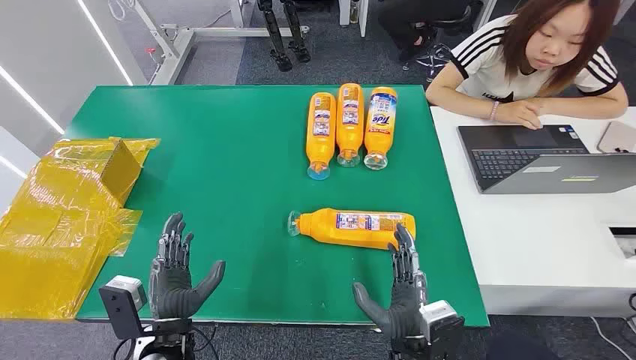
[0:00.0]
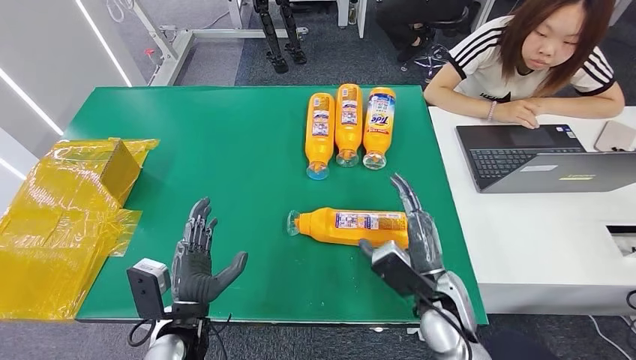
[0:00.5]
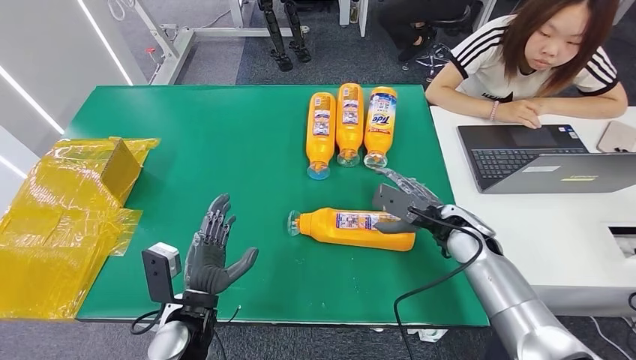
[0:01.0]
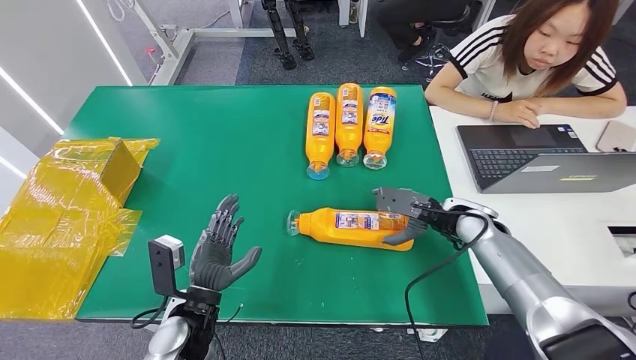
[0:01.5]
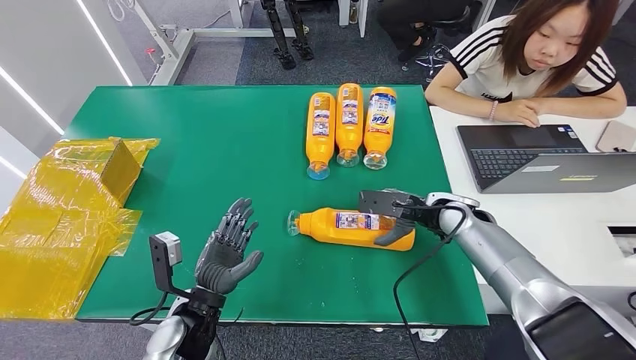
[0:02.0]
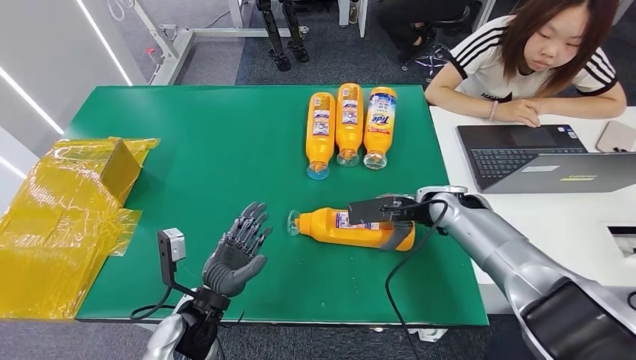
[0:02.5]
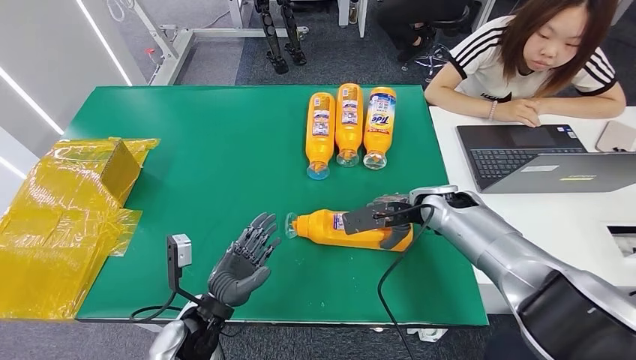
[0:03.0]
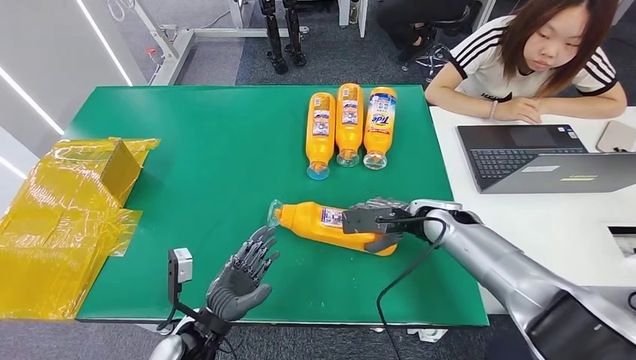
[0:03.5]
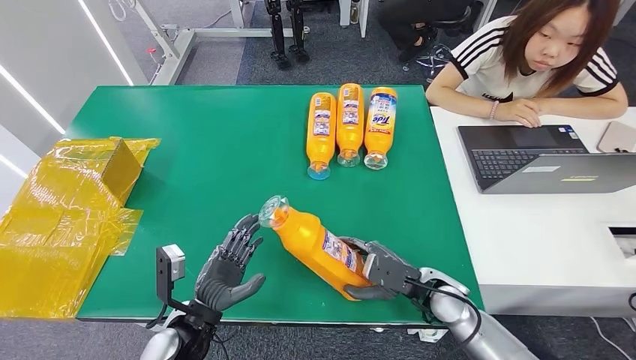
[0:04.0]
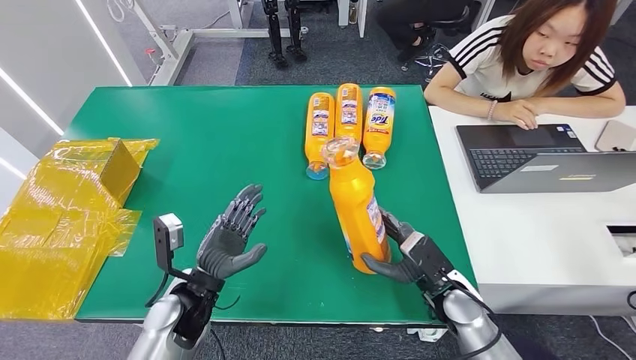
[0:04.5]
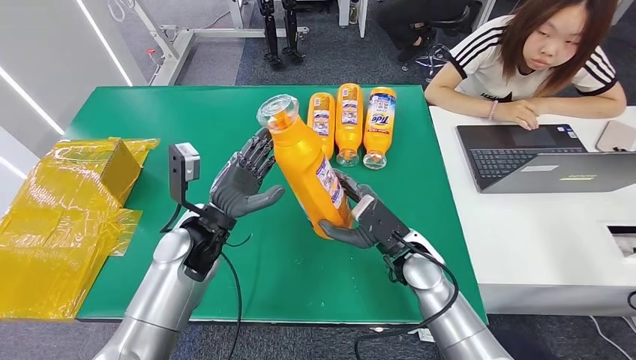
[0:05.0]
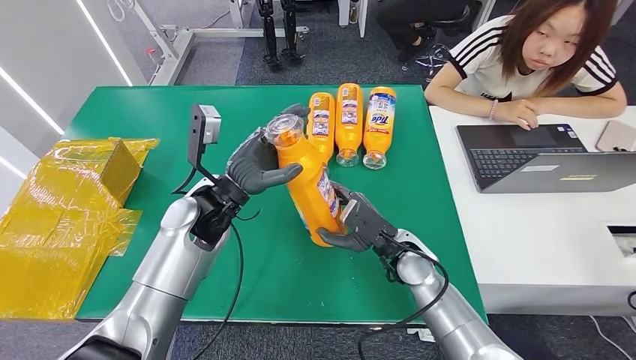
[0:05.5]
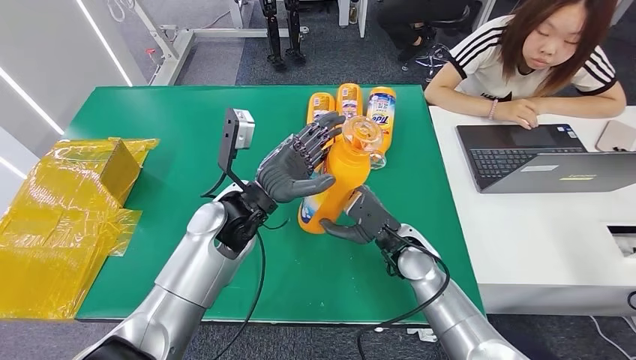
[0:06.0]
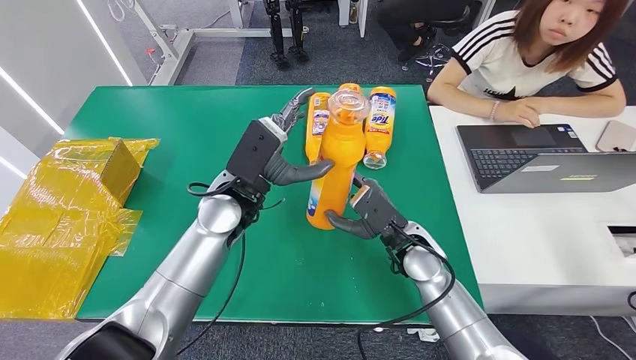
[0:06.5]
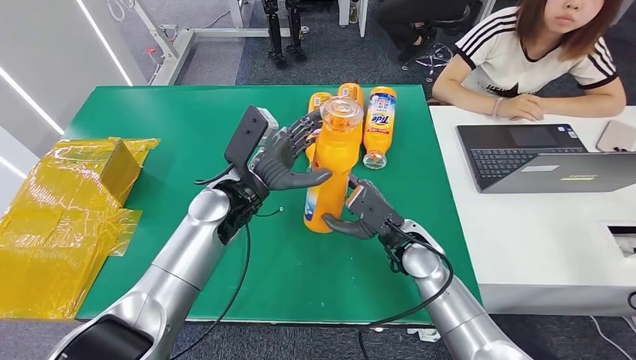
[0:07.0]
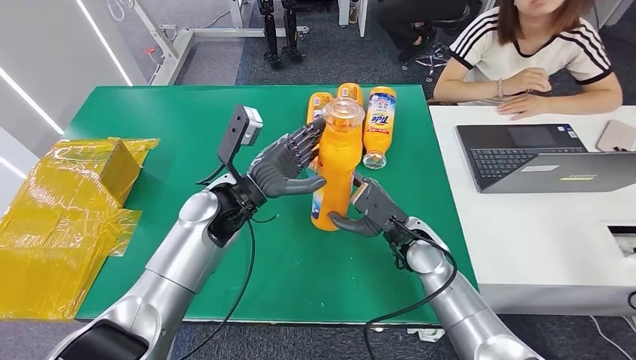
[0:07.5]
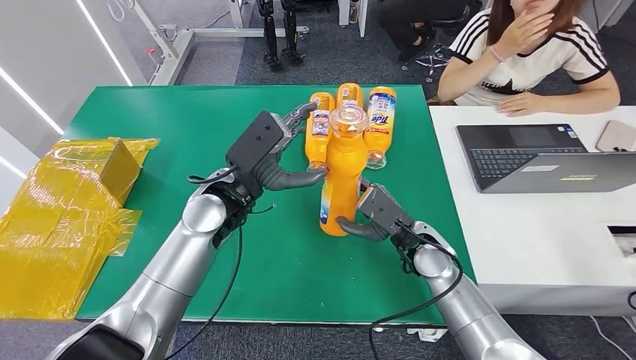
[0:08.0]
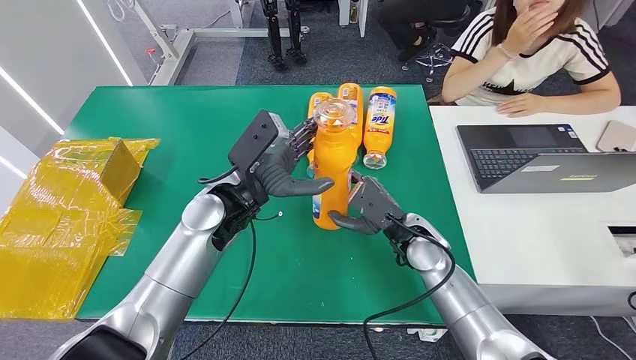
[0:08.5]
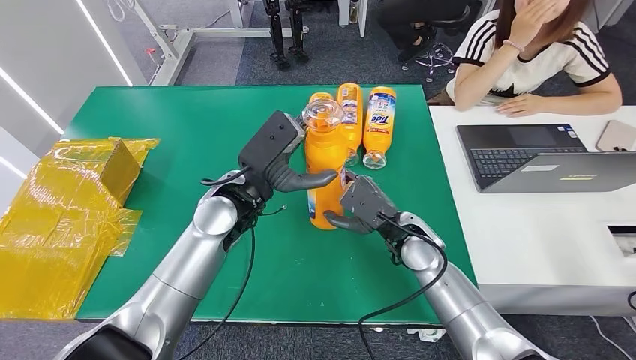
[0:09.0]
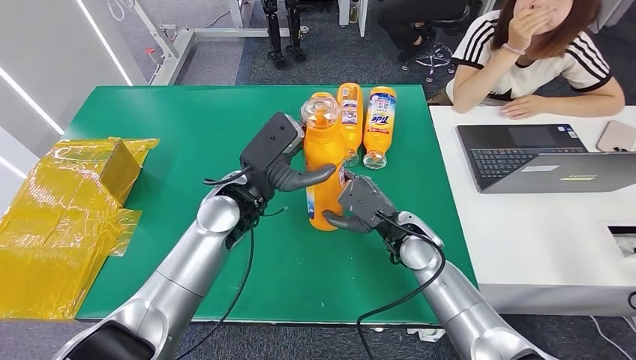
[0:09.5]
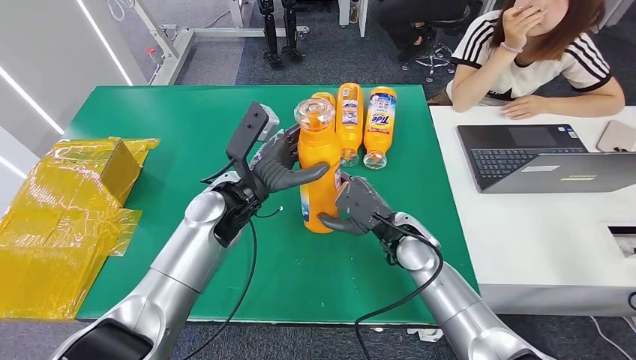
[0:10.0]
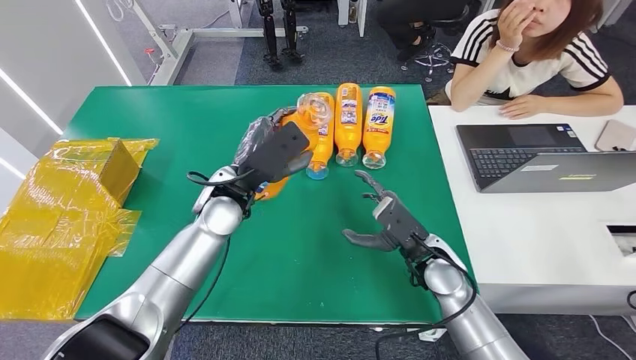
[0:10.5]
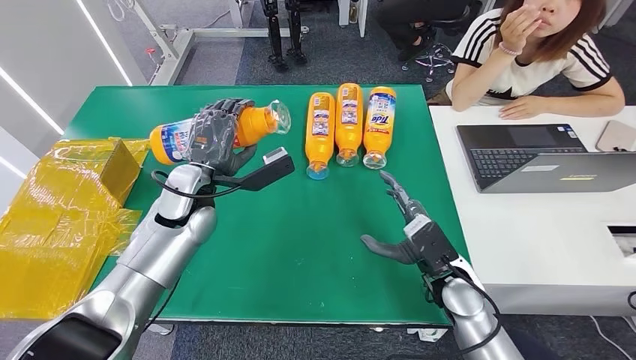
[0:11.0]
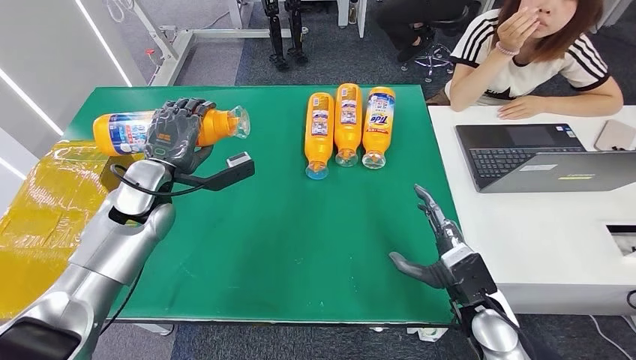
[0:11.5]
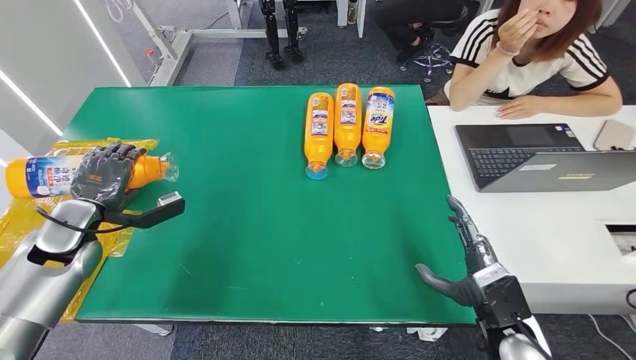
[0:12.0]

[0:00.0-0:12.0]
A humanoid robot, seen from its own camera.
Step, 0:00.0 to 0:06.5: Pick up the bottle from the table.
0:02.0 to 0:04.0: The right hand is displaced backward and downward by some 15 cm.

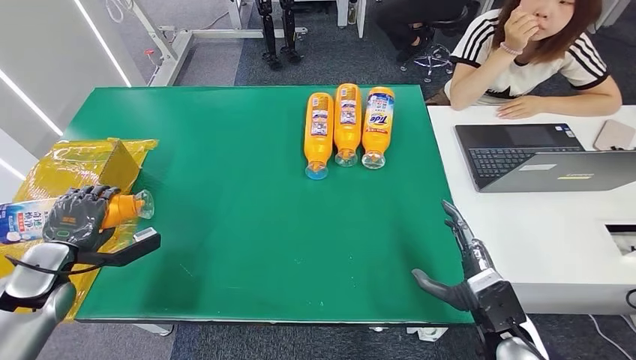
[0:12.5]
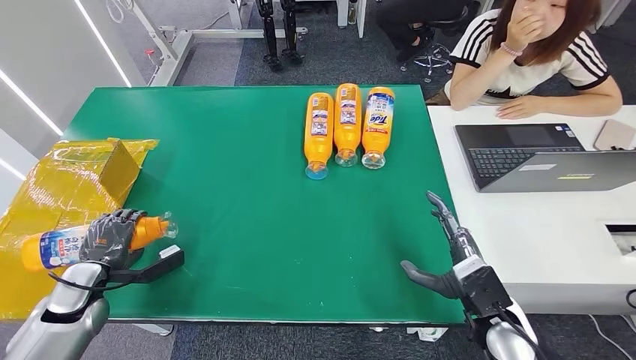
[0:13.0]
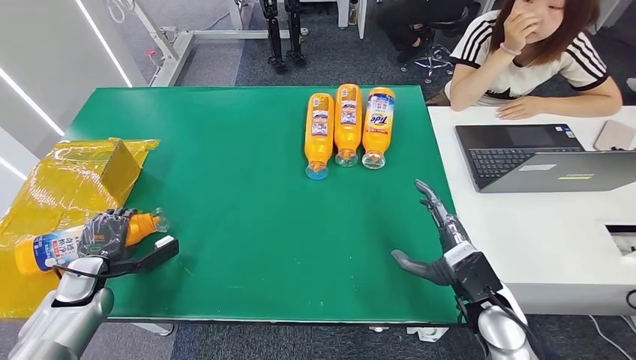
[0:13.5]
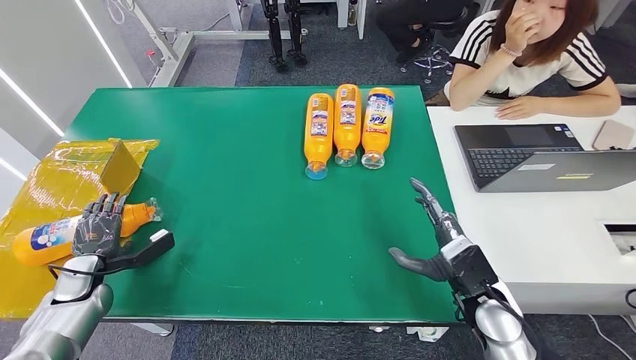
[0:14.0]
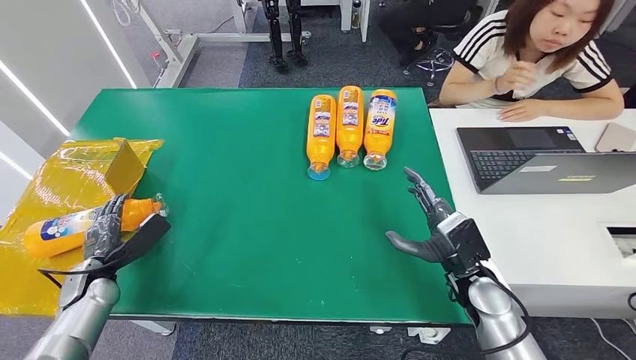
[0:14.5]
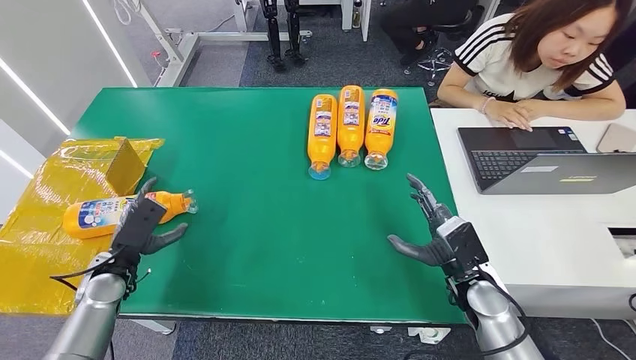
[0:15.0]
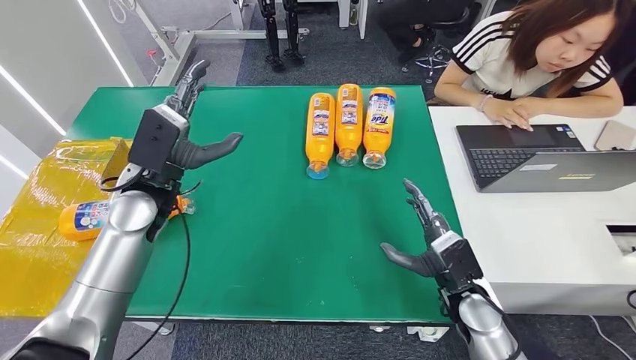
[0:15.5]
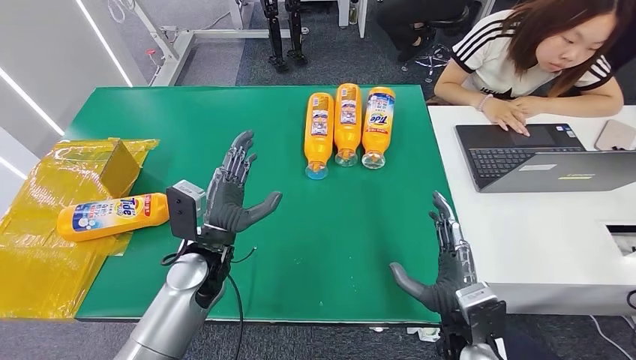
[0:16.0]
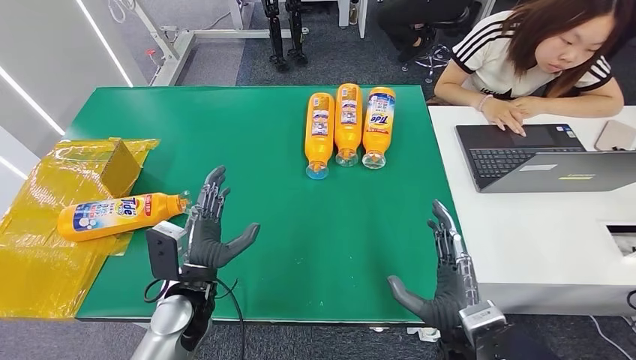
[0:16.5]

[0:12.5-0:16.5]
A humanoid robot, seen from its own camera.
Step, 0:12.5 to 0:16.5: Turn the bottle to the front side.

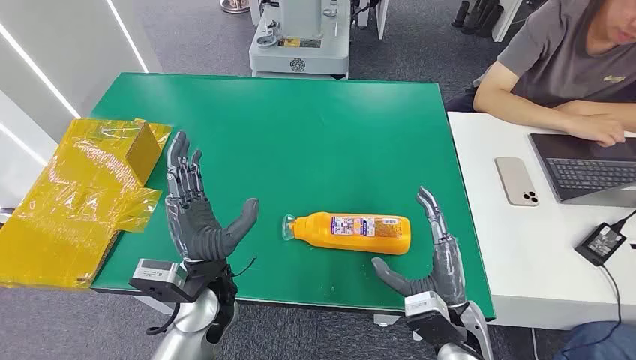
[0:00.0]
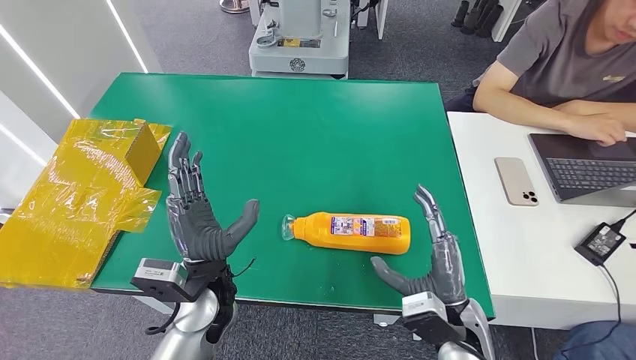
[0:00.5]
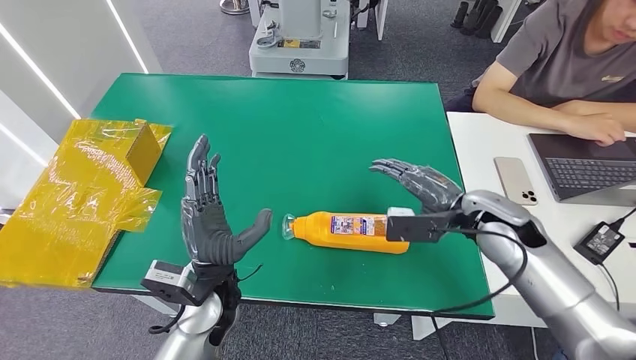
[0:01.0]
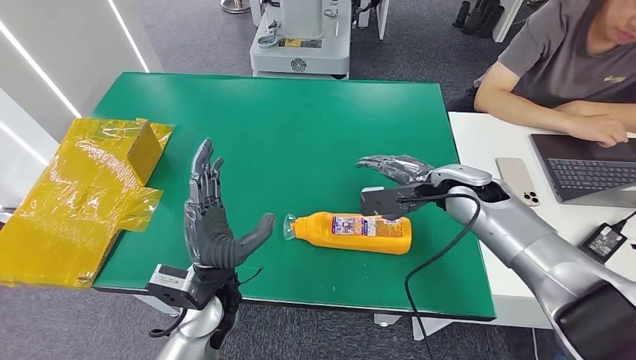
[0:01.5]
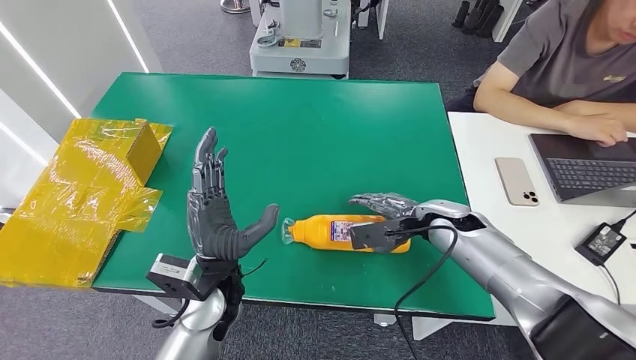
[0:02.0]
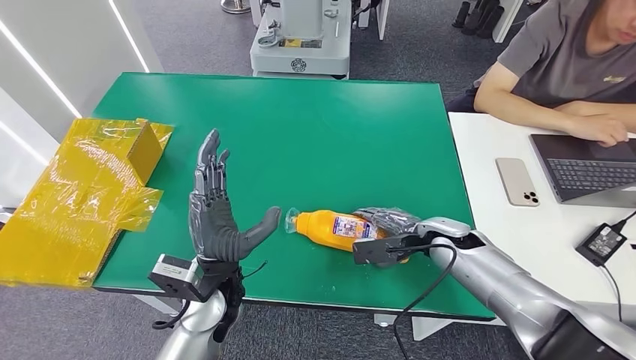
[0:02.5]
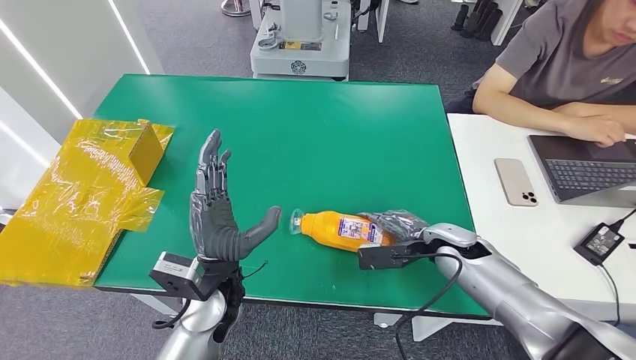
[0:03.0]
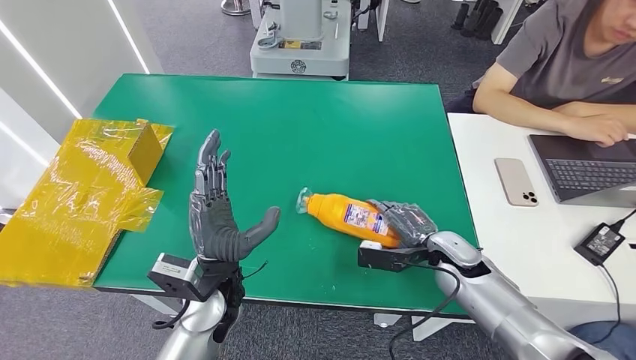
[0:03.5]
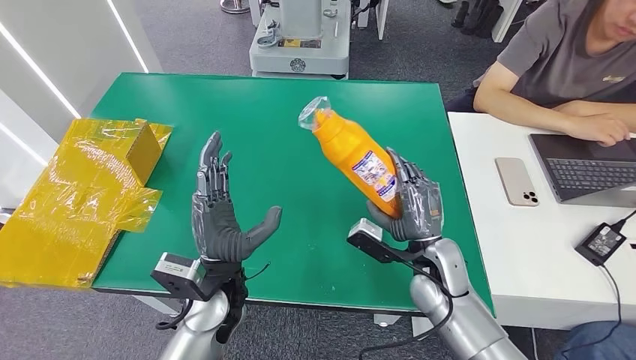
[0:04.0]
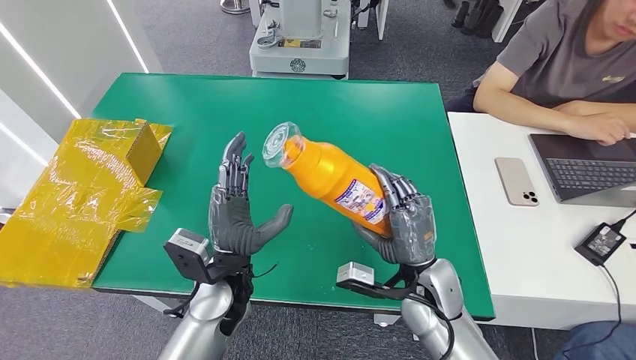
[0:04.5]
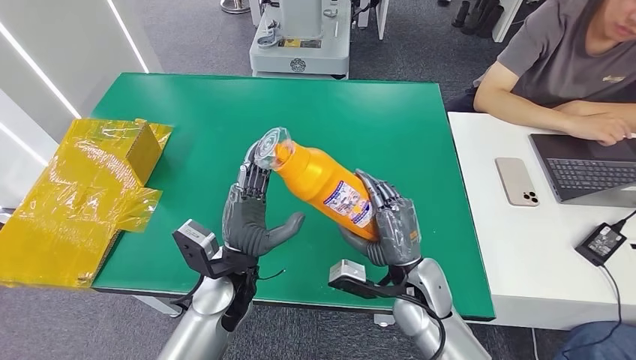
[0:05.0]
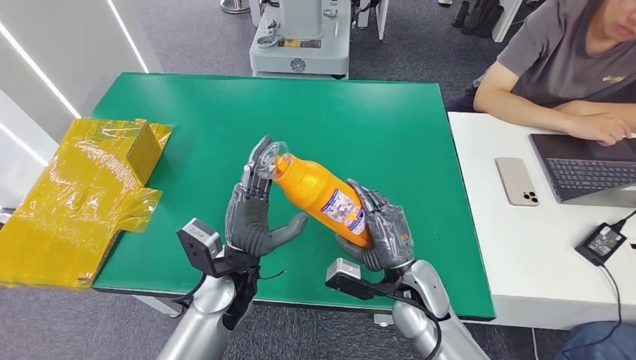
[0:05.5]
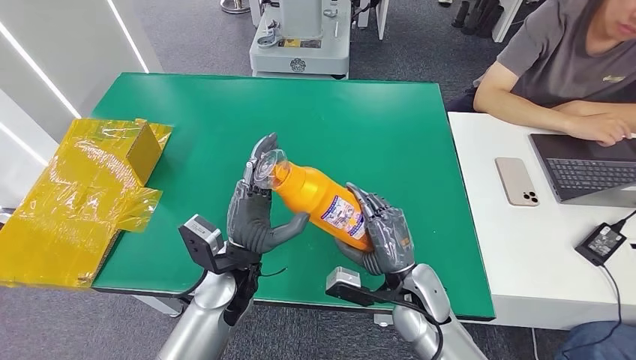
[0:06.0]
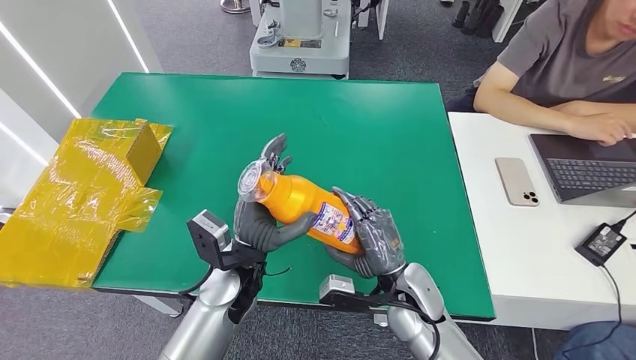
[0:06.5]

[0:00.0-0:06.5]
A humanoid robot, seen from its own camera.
Step, 0:00.0 to 0:04.5: Pick up the bottle from the table.
0:02.0 to 0:04.5: The right hand shifts approximately 15 cm backward and to the left.
